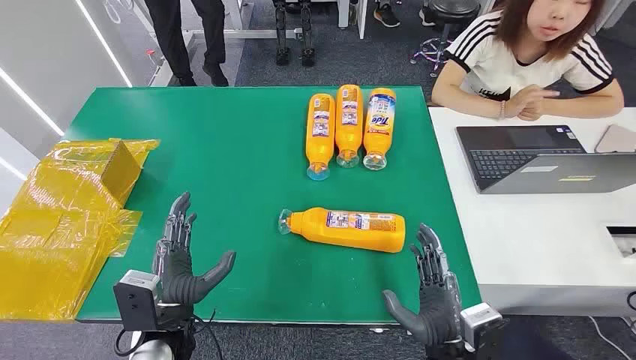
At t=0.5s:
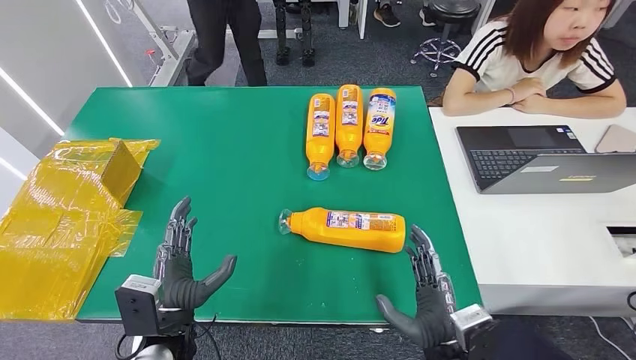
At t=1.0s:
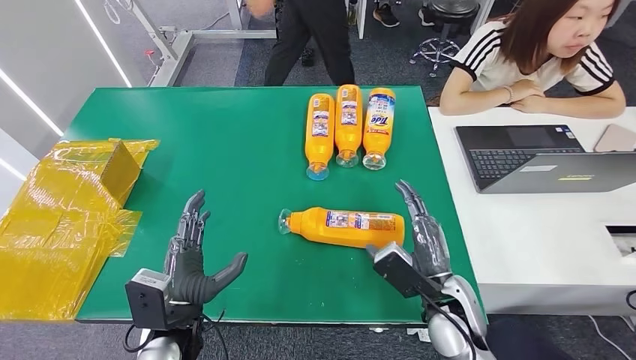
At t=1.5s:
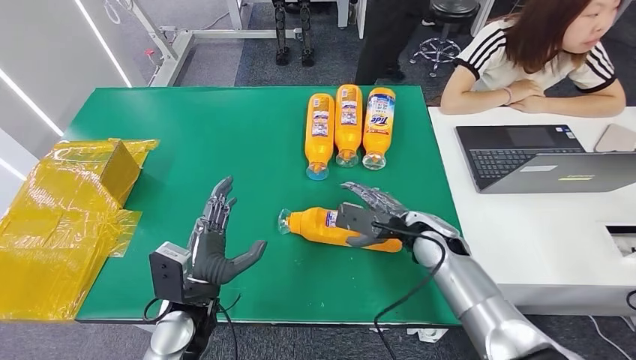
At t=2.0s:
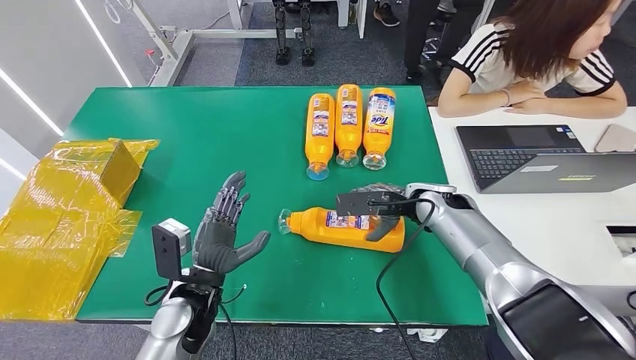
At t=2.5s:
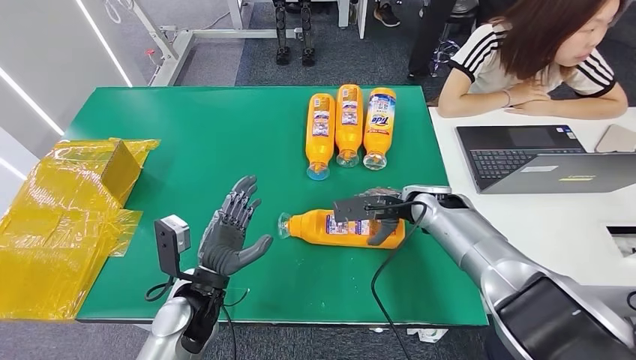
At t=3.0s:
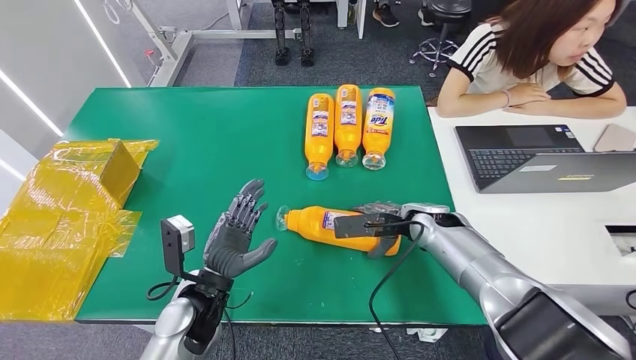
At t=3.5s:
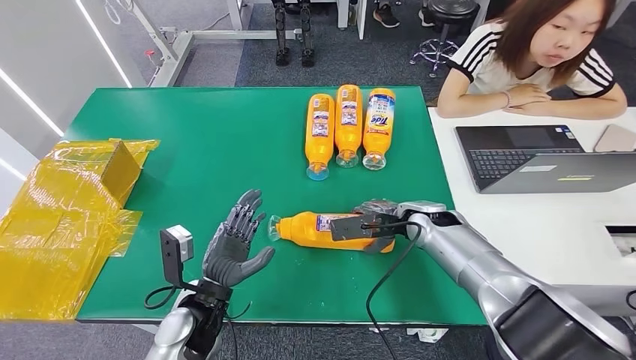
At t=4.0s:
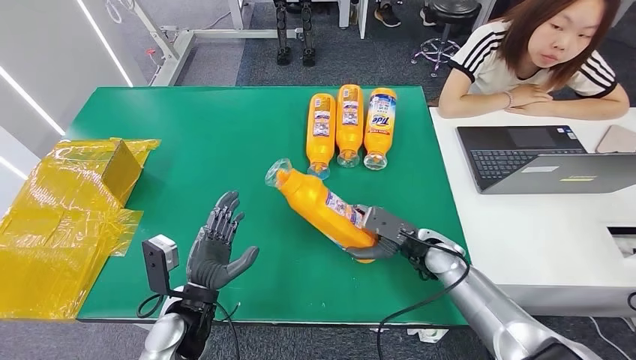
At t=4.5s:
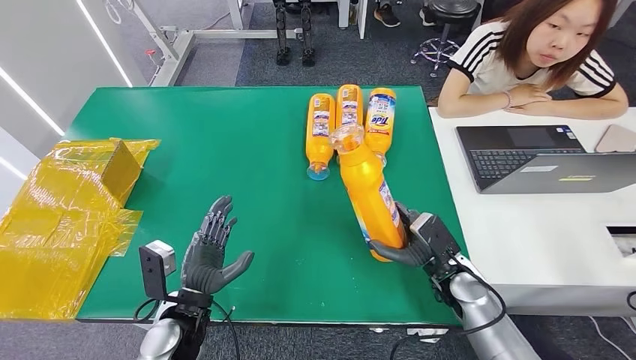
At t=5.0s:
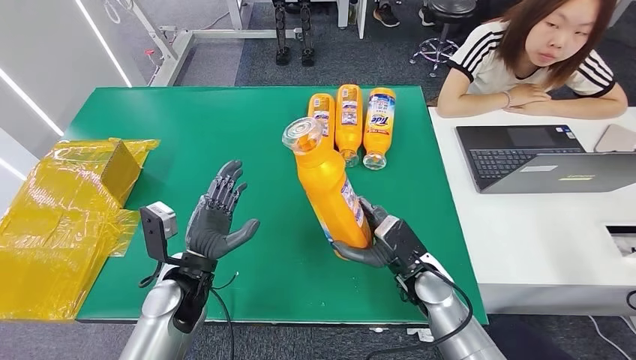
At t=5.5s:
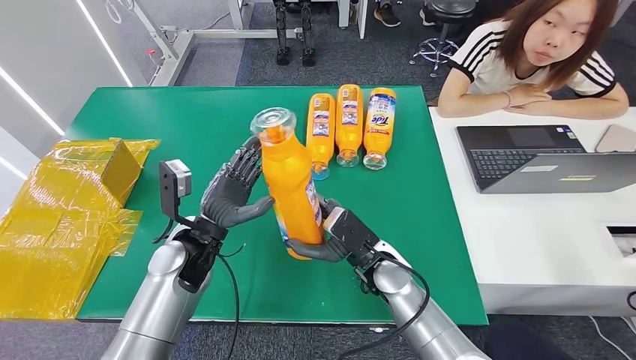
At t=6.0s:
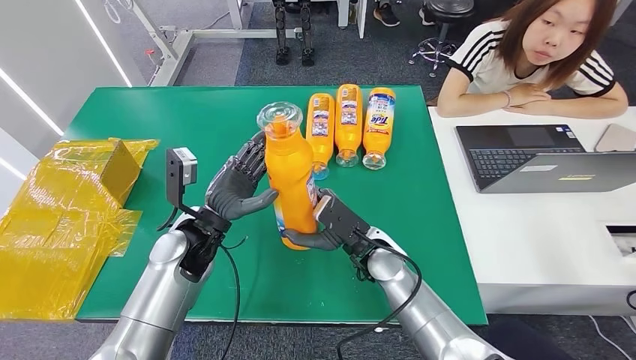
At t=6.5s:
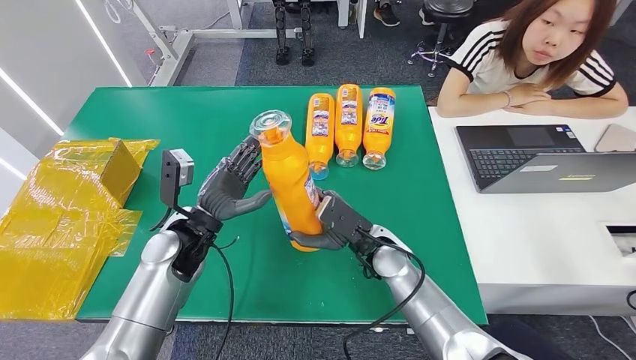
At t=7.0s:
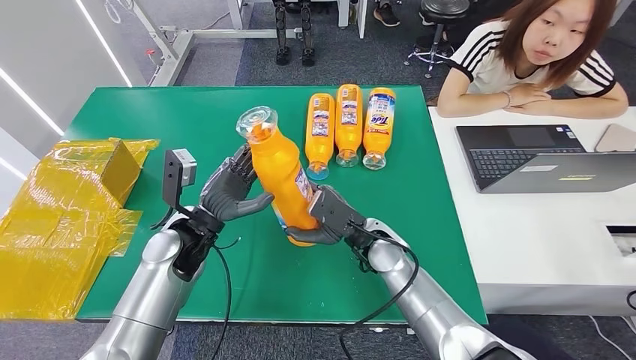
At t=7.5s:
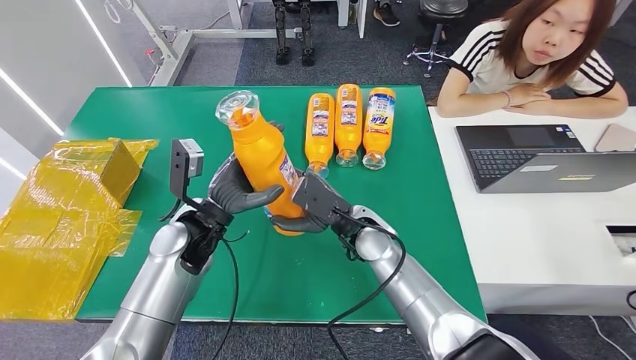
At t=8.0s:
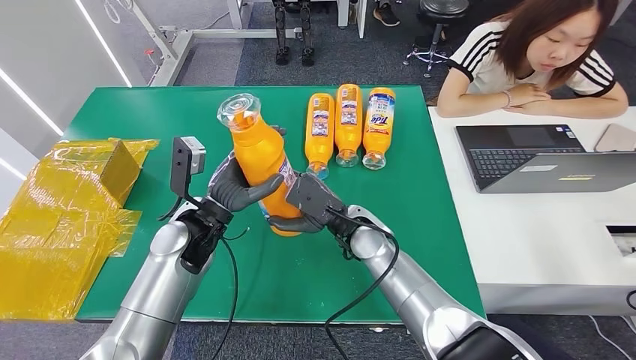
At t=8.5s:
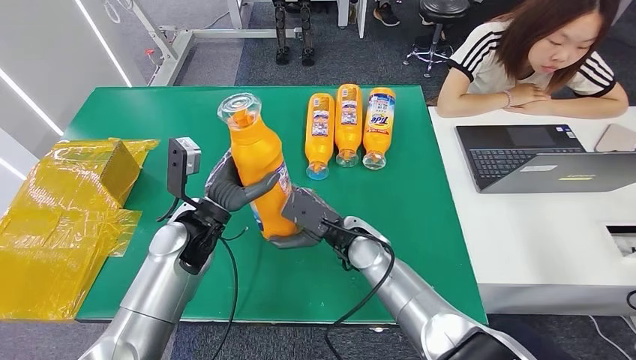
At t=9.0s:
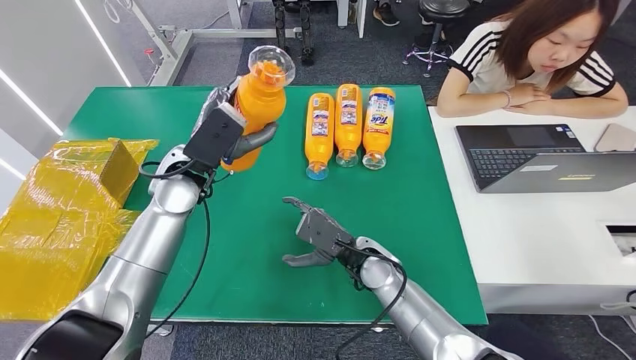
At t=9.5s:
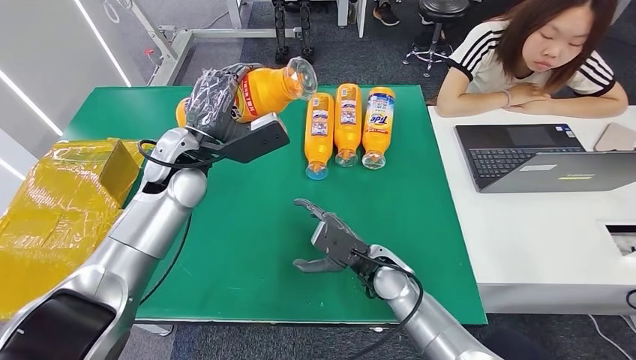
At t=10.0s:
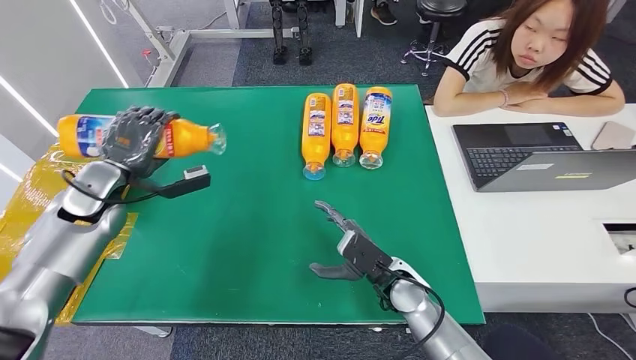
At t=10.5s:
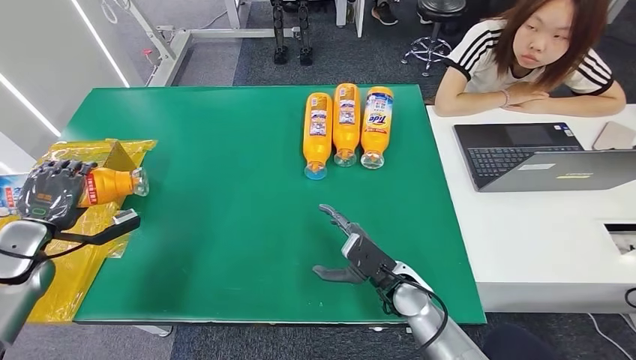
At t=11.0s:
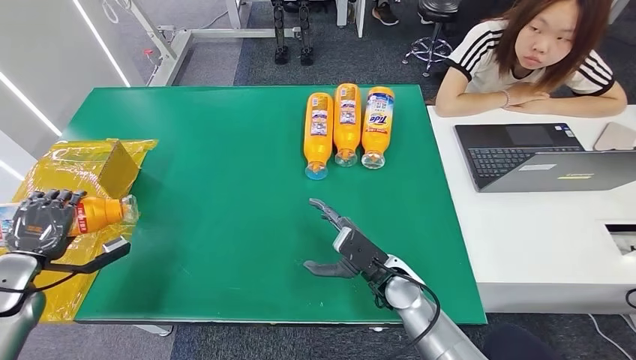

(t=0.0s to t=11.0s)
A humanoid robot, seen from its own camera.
Step, t=0.0s - t=6.0s: Pick up the bottle from the table.
Step, t=6.5s - t=11.0s: Turn the bottle to the front side.
t=2.0s - t=3.5s: The hands move only a little.
t=5.5s - t=7.5s: The right hand ends up some 5 cm from where it was.
